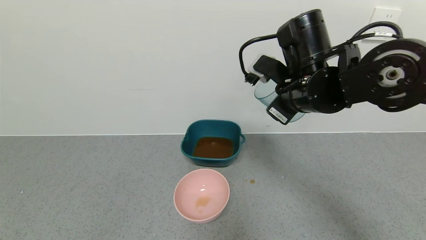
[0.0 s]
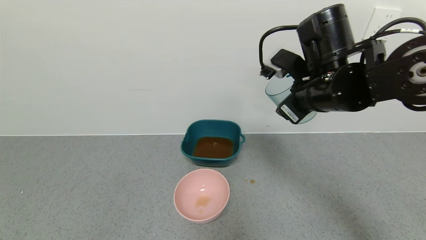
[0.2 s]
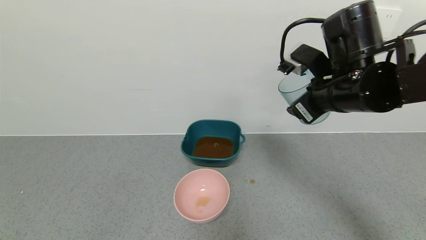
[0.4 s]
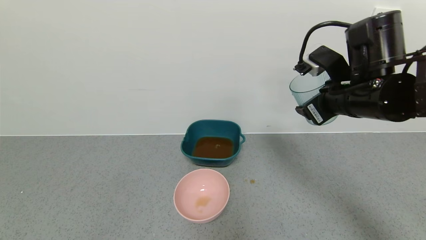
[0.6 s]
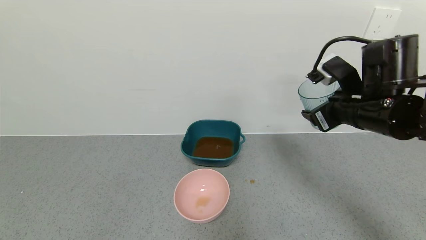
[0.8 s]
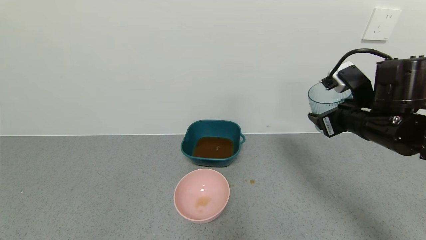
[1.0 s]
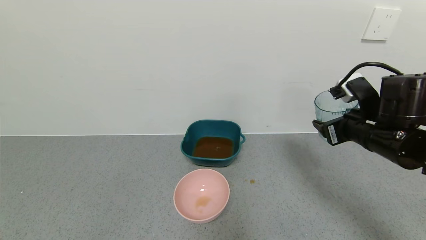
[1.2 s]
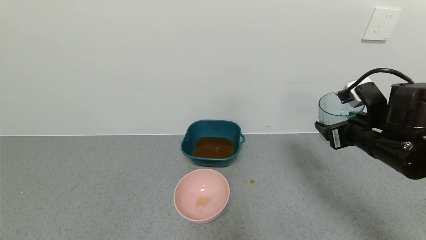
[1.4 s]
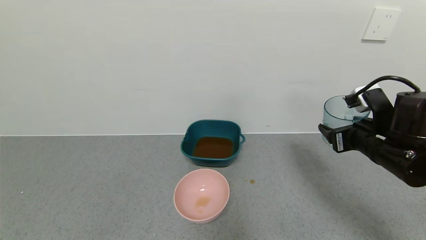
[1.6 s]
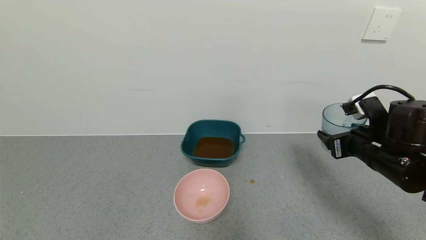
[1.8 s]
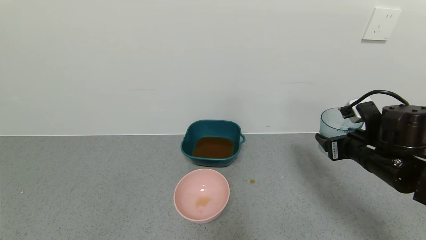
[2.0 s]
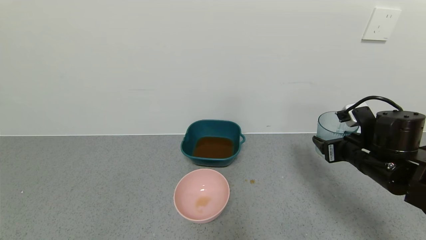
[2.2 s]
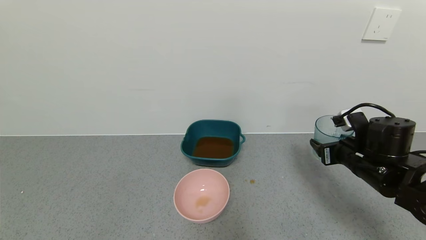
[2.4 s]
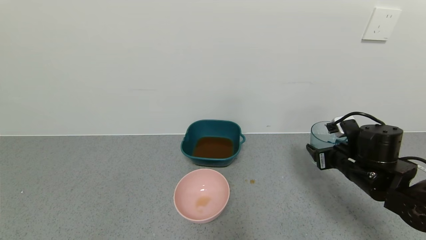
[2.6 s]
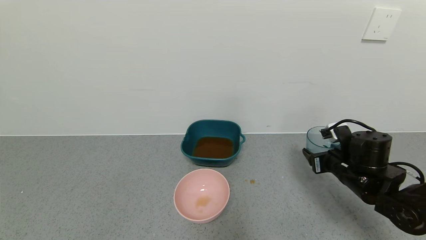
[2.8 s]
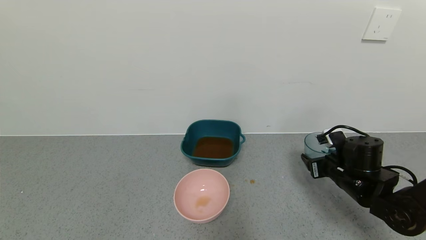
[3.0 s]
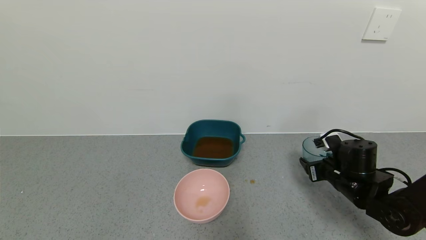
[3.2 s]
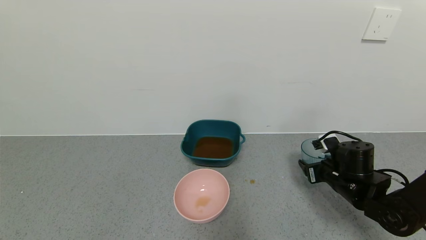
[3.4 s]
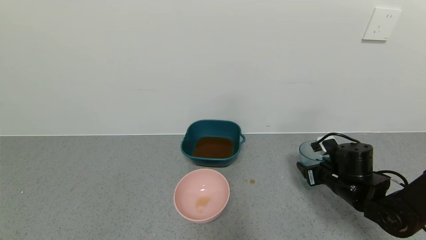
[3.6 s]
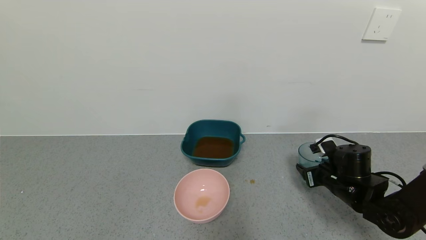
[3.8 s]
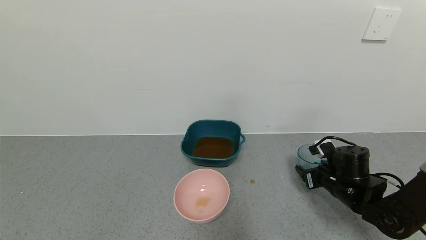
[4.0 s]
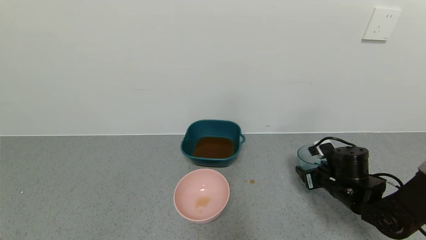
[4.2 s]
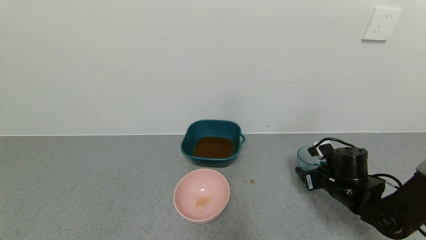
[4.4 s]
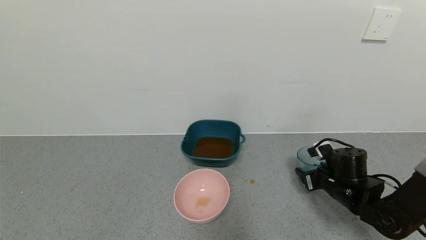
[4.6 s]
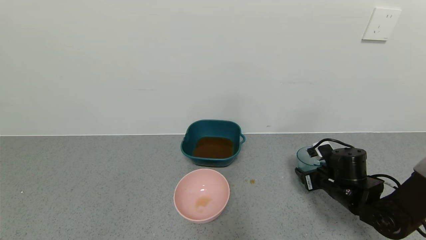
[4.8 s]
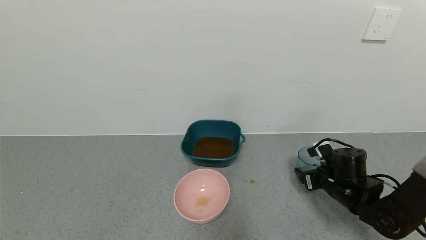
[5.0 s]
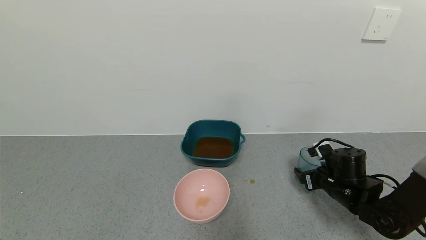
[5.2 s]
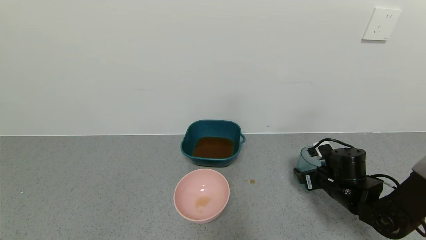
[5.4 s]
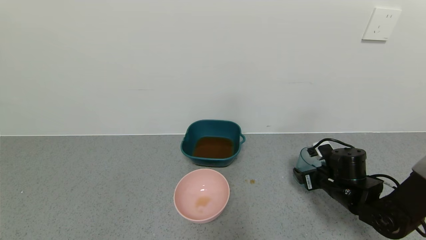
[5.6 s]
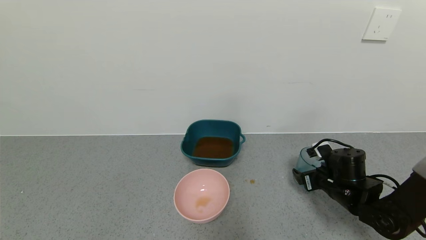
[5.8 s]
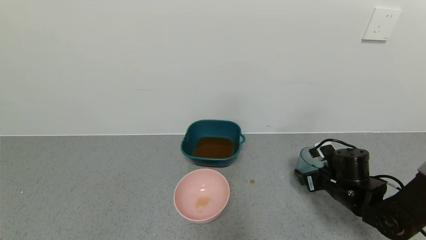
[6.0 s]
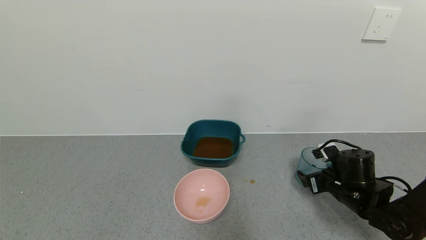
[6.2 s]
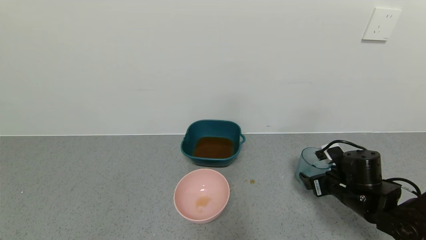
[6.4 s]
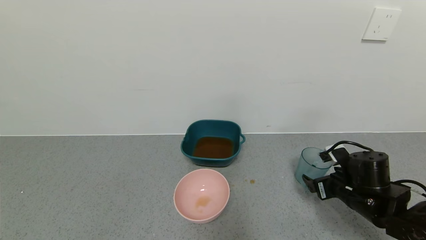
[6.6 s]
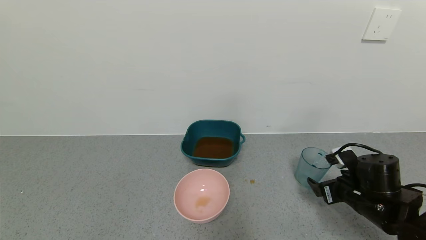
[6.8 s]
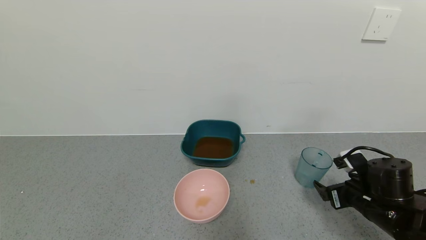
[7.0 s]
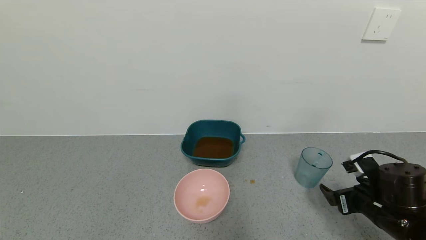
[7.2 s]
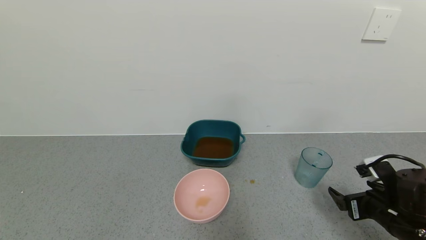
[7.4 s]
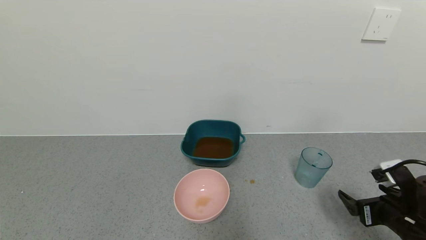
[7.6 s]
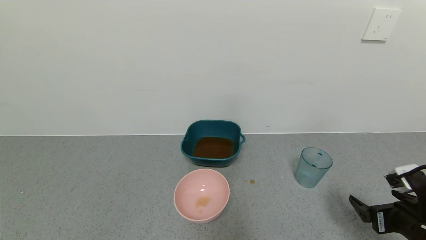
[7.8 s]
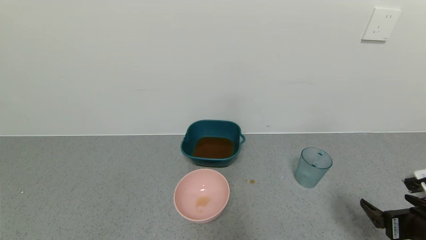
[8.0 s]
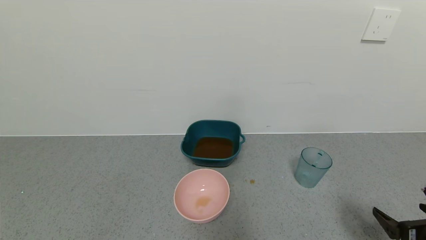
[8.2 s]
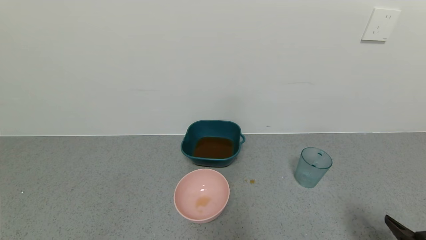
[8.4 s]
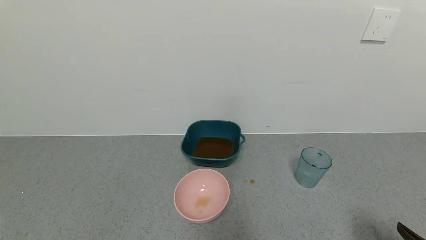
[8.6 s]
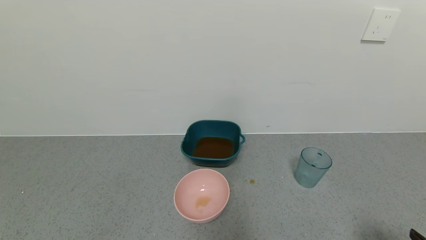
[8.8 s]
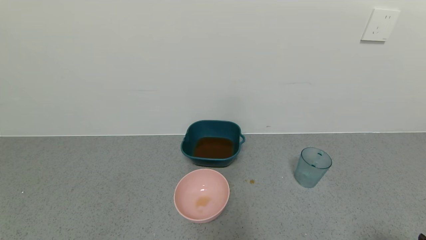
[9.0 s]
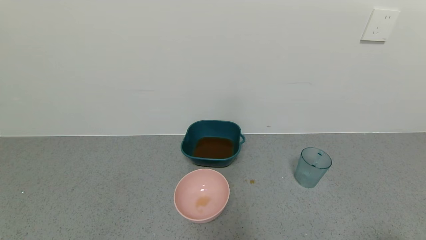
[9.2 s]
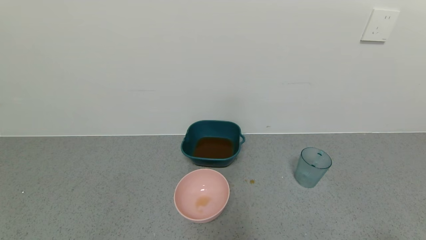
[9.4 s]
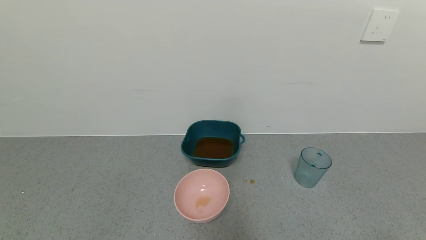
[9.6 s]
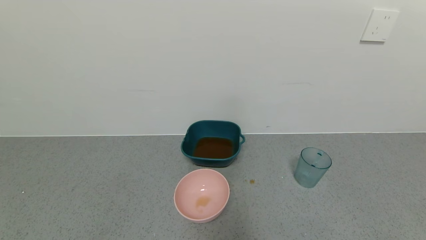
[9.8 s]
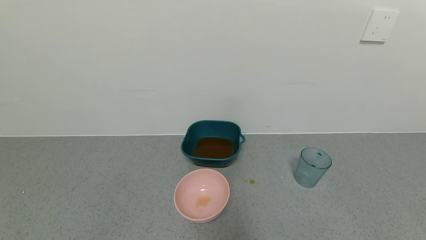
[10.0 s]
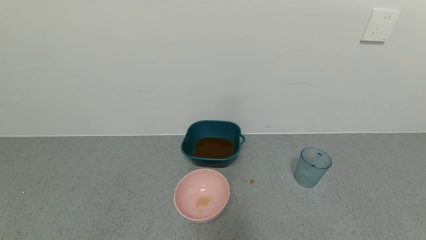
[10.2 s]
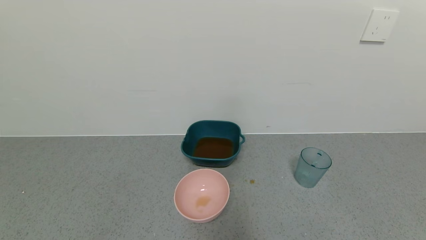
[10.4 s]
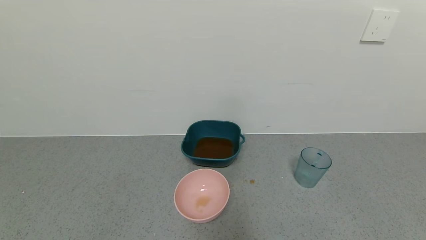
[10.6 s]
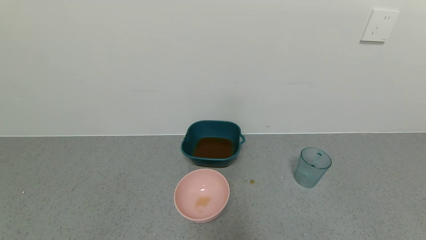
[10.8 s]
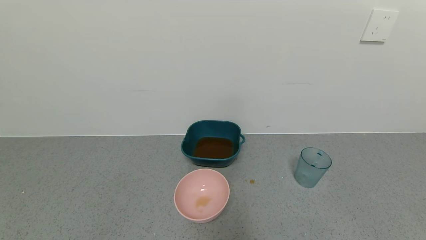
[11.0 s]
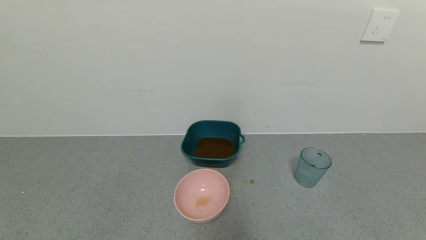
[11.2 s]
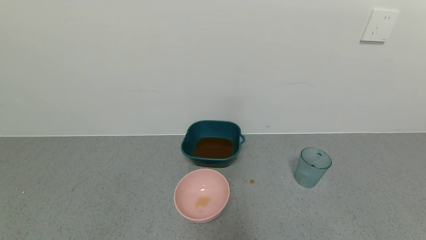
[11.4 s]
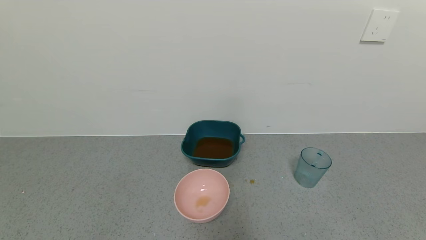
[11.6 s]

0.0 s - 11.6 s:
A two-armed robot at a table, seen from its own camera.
Task of the whole recording: use a gripper to pick up the cup and pour the liquid into a bowl or tray.
Step, 0.0 s - 5.6 s: Place blue cup with tea on the table with right gripper.
0.0 s - 1.4 s: The right gripper is displaced to the right and downward by some 15 cm.
1.4 s - 2.8 s: The right gripper goes approximately 10 cm downward.
2.8 s - 4.4 s: There are only small adjustments of the grippers.
4.4 s - 5.8 s: The right gripper opens.
5.8 s - 7.2 s: The right gripper goes roughly 10 cm backward.
7.2 s - 8.8 s: The right gripper goes about 15 cm backward.
